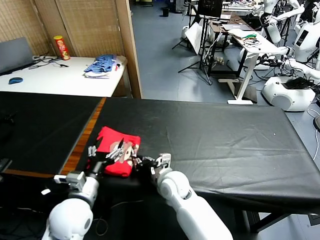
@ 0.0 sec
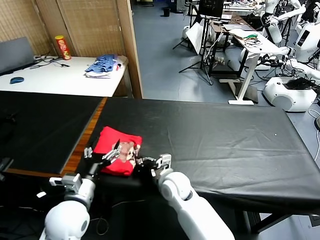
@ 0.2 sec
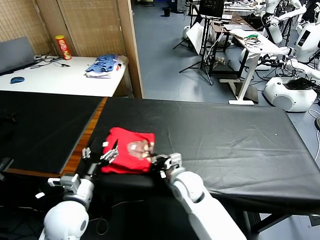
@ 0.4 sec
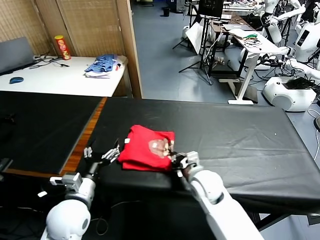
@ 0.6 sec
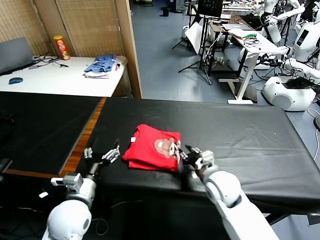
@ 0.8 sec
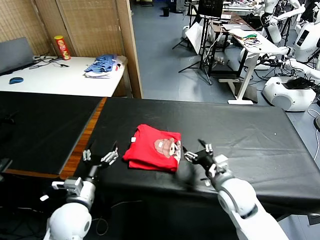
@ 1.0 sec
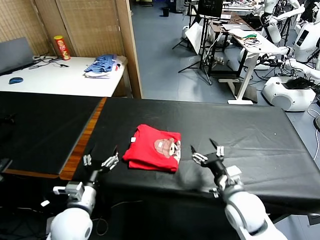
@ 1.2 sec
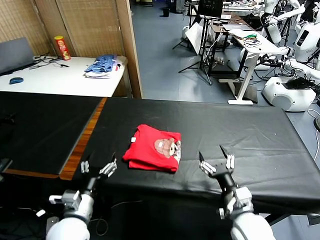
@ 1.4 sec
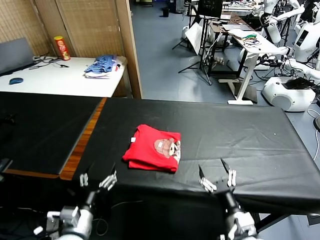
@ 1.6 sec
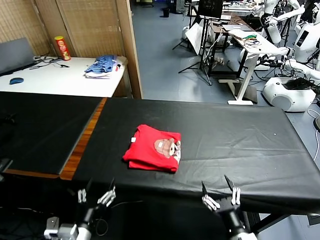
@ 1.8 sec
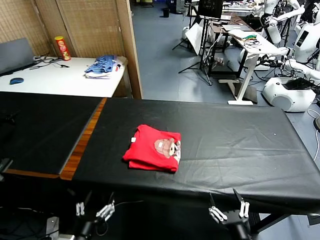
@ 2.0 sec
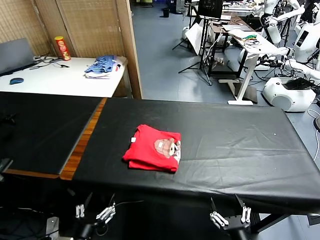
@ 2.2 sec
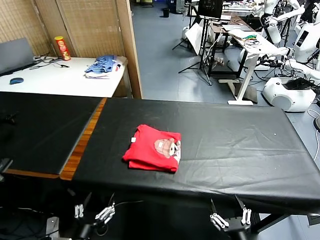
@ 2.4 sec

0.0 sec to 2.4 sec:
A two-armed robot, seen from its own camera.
Task of the whole recording: fold and organize the clothes.
Step, 0.0 sec to 1.0 sec: Drag the clothes to the center of the table.
0.0 sec to 1.2 sec: The right gripper is displaced to the right and backward by roughly 20 cm, and opens.
1.2 sec to 2.4 sec: Both grippers travel together backward, some 20 cm.
